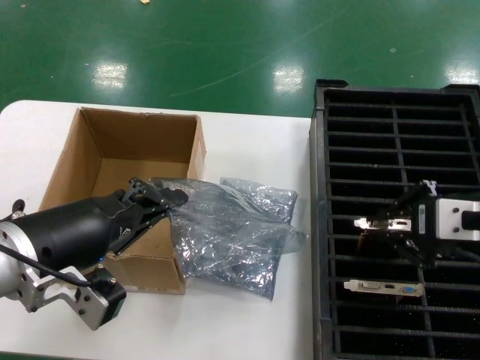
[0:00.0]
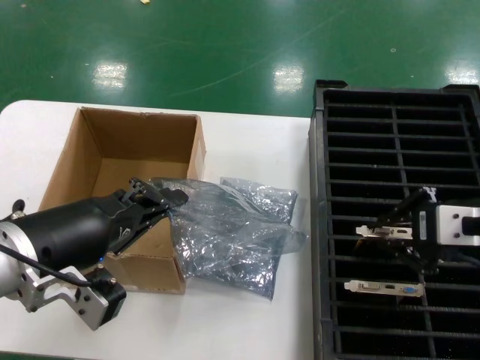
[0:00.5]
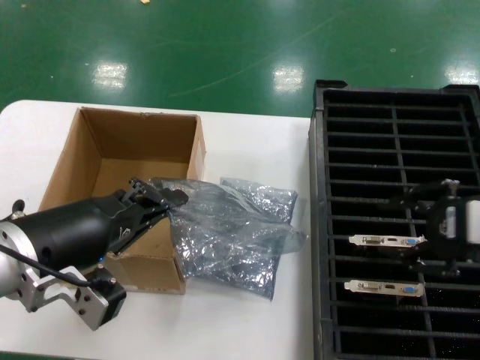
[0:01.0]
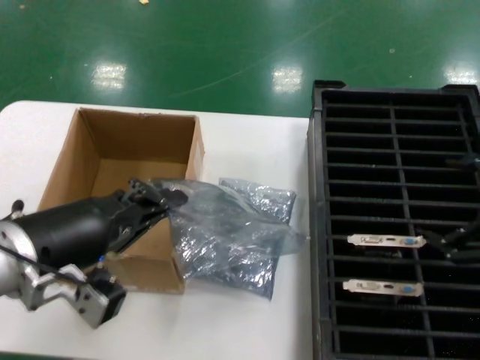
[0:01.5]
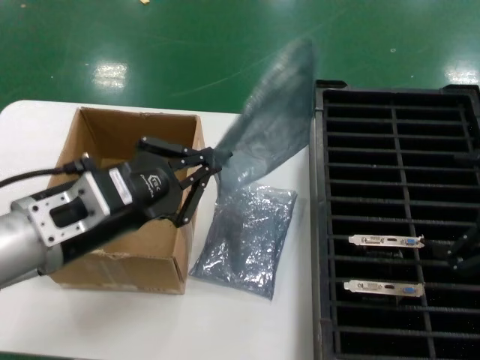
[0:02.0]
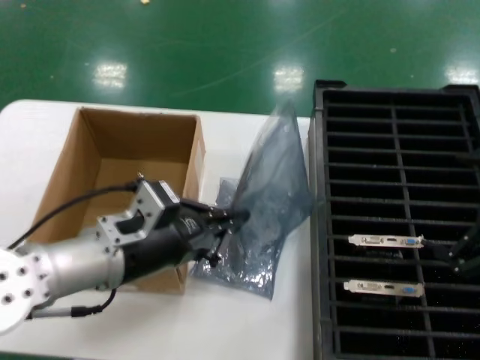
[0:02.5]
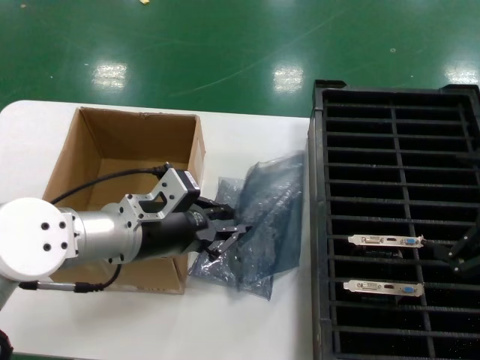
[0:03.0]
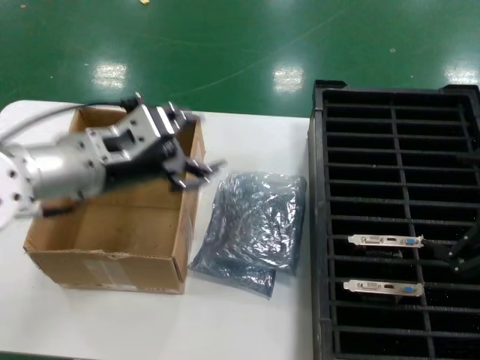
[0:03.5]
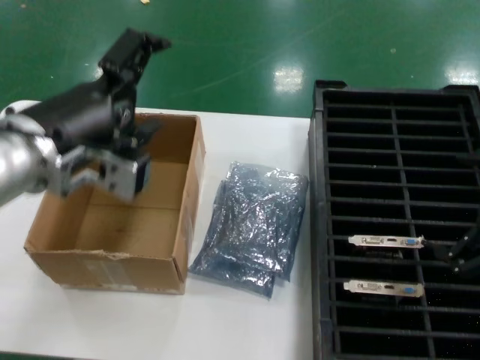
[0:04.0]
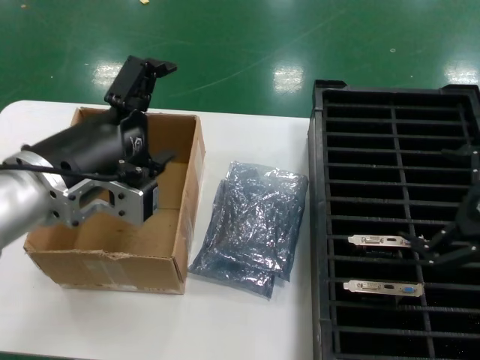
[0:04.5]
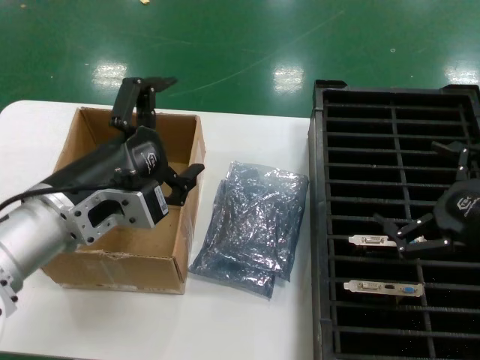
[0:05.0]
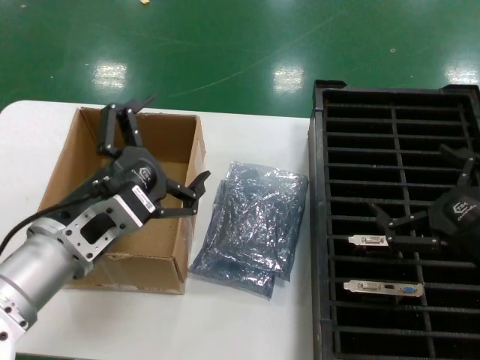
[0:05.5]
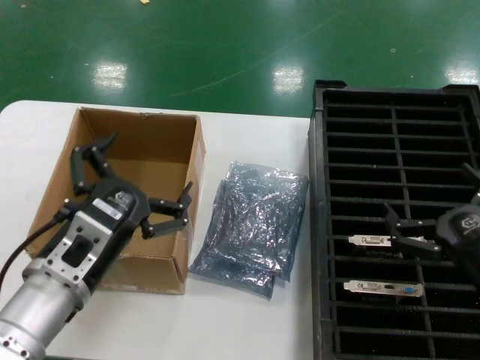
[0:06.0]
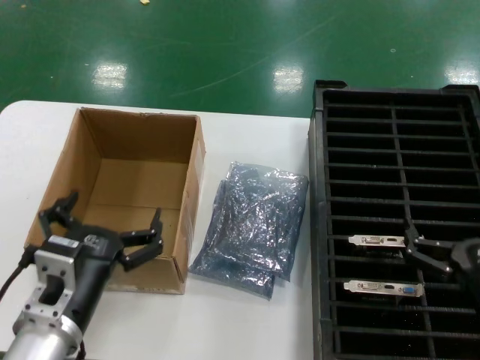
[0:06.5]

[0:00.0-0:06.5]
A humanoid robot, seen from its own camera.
Task of the whole recording: take out graphics card from box remove packaging put into black container.
Step, 0:01.5 to 0:03.5: Place the down the bag.
0:00.0 to 0:02.0: The right hand is displaced to the right by roughly 10 cm.
0:02.0 to 0:04.5: The left hand moves some 5 cm upward and comes back.
0:04.5 to 0:06.5: The hands both shift downward by some 15 cm.
